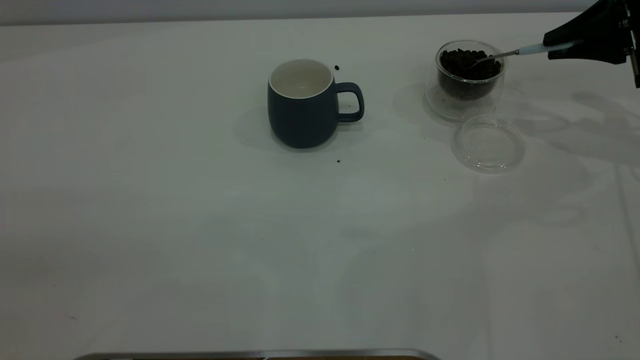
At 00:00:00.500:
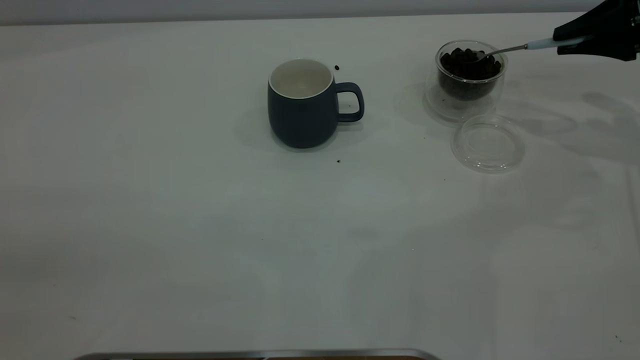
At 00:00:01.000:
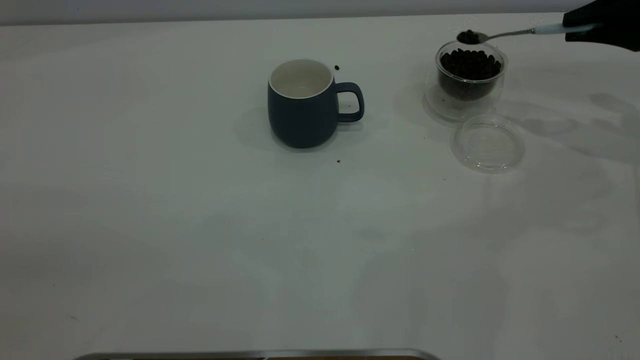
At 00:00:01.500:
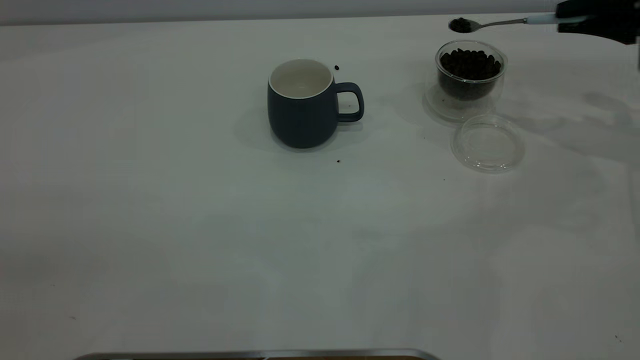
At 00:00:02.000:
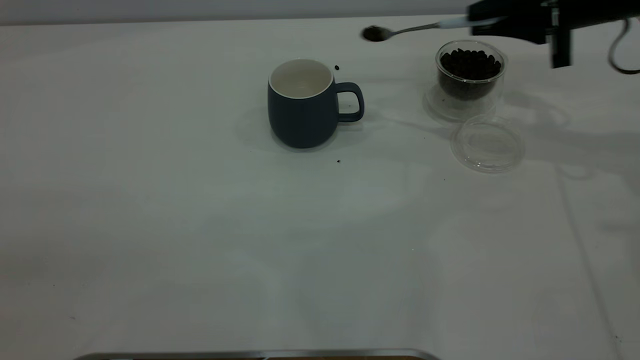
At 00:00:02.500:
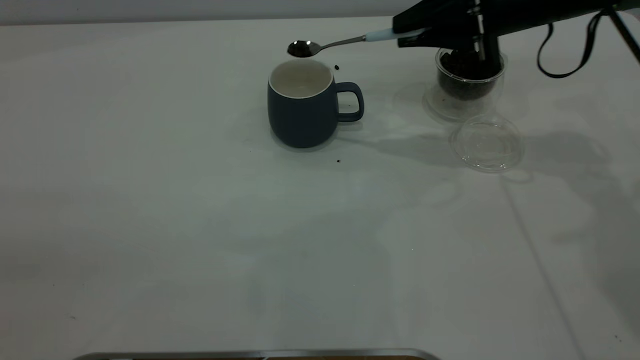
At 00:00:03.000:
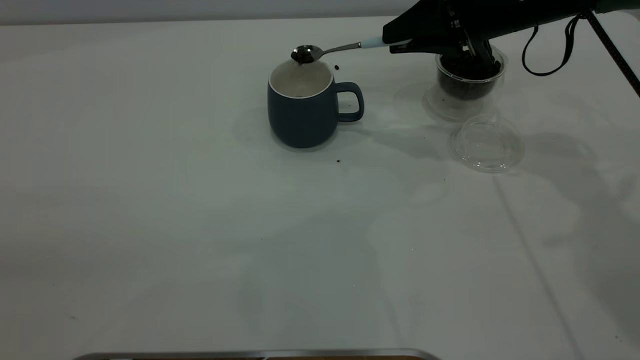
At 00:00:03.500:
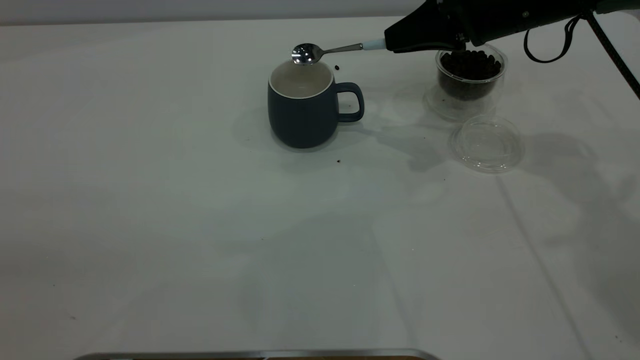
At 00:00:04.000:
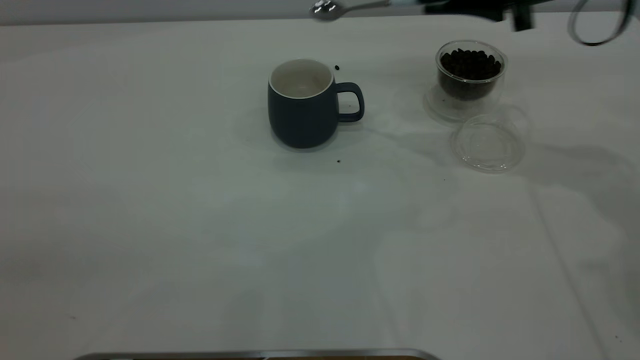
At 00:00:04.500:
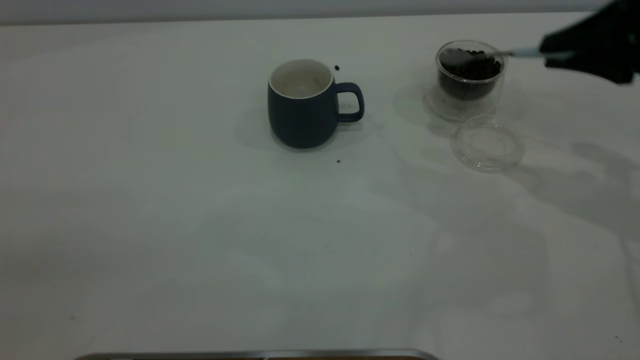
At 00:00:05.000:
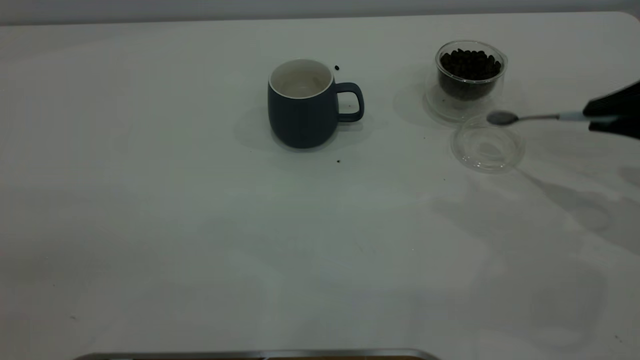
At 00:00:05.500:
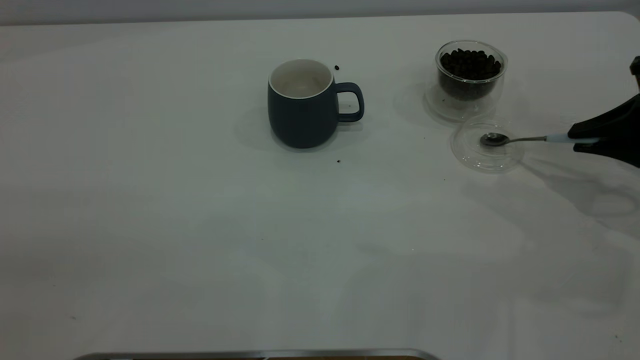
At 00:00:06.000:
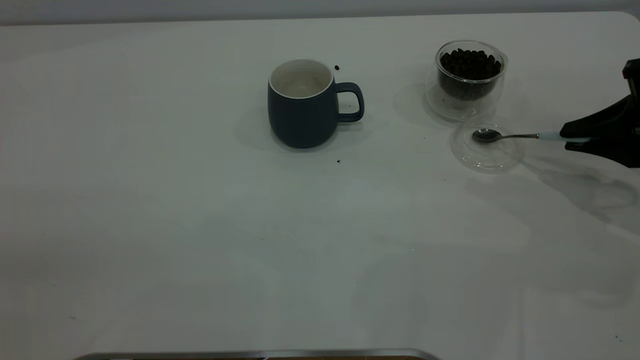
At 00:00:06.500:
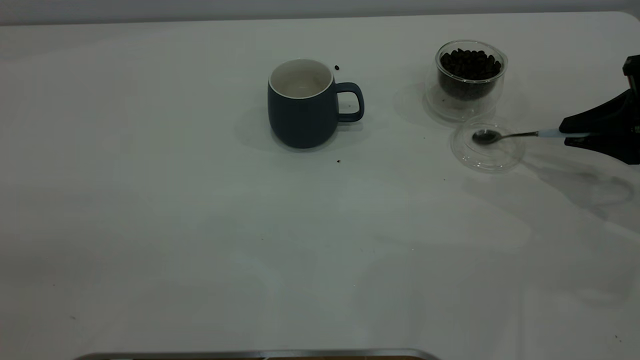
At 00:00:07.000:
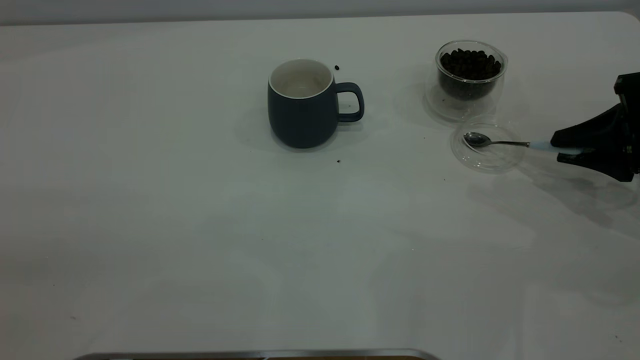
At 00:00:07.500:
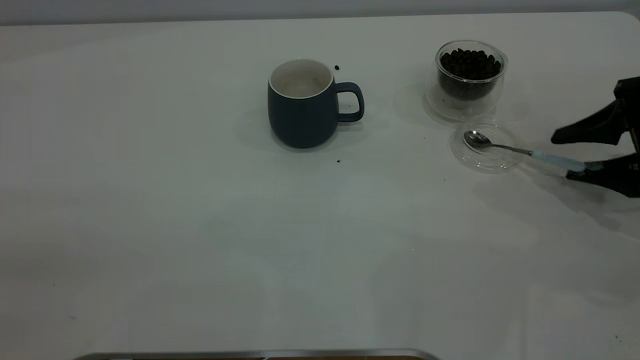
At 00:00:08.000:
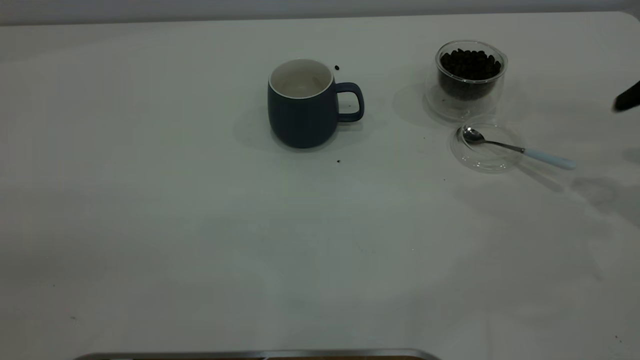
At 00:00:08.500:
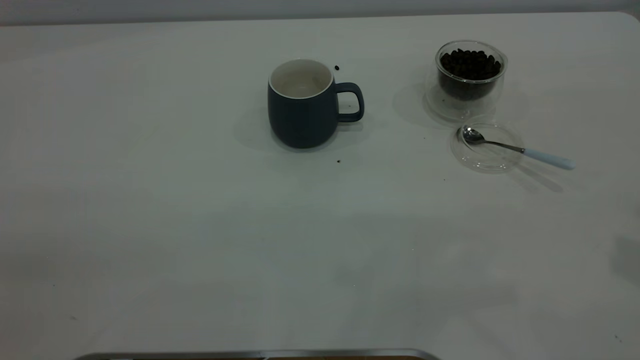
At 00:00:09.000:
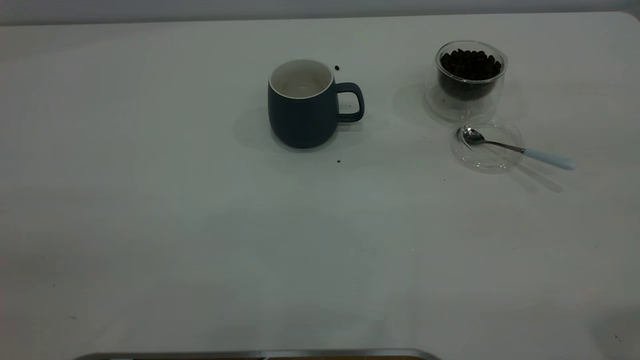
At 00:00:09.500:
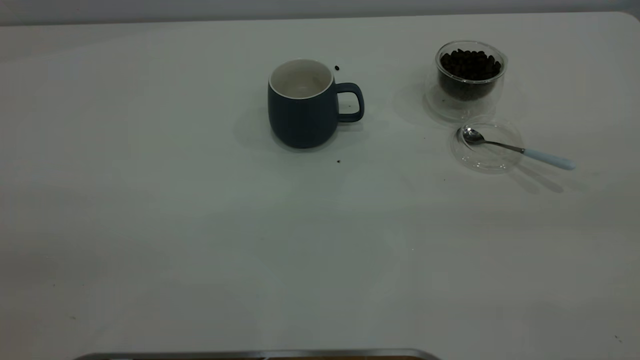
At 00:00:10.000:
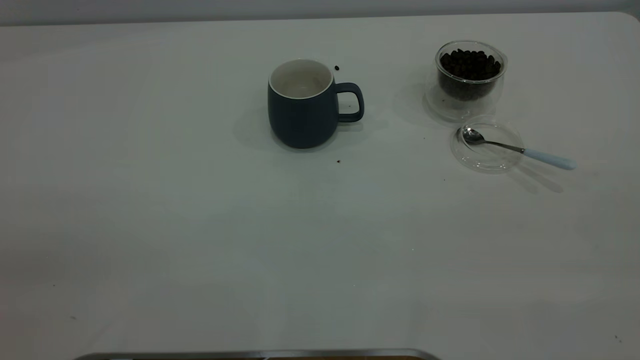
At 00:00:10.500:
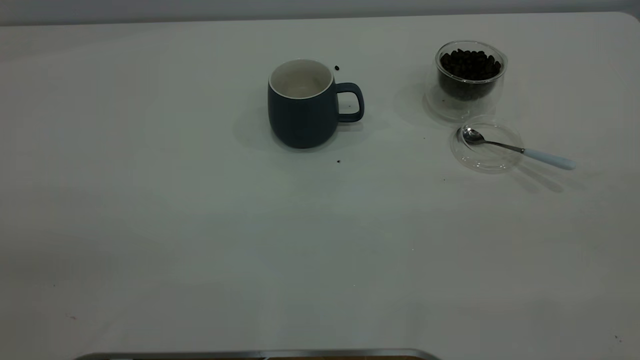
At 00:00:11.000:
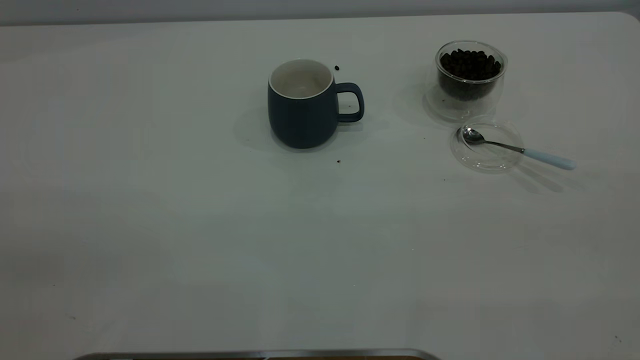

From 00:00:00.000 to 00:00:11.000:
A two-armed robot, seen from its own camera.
Task of the whole recording: the left gripper place the grey cup in the center of the table, the right gripper take the blue spoon from the cup lid and scoop out the coffee beans from the coffee cup and put them into the grey cup, the right gripper put the spoon back into the cup lid.
Step, from 00:00:00.000 to 00:00:03.500: Scoop a spoonful of beans into the cup.
Step, from 00:00:04.000 to 00:00:07.500: Place the spoon back in its original place.
From 00:00:00.000 to 00:00:02.000: The right gripper shifts about 10 cm to the left.
From 00:00:02.000 to 00:00:03.500: The right gripper travels to the left by approximately 5 cm.
From 00:00:03.500 to 00:00:05.500: The right gripper moves to the right and backward, about 20 cm.
From 00:00:05.500 to 00:00:07.500: The right gripper opens up.
From 00:00:07.500 to 00:00:09.000: The right gripper heads upward and backward, covering about 35 cm.
